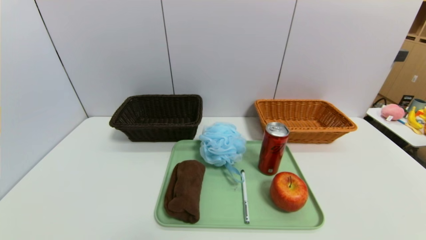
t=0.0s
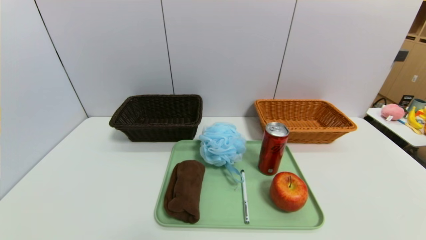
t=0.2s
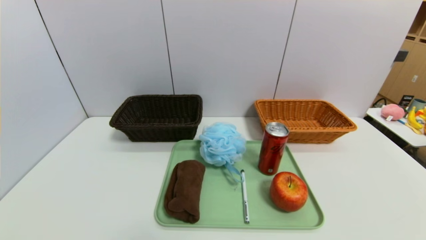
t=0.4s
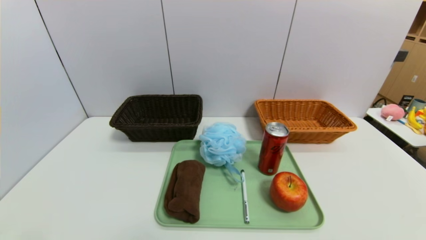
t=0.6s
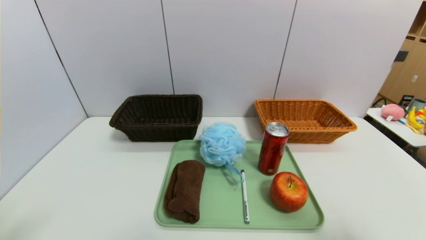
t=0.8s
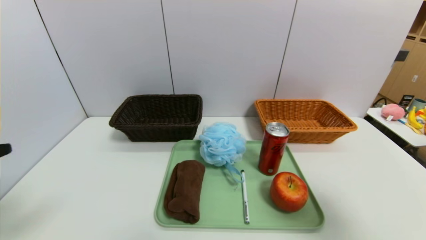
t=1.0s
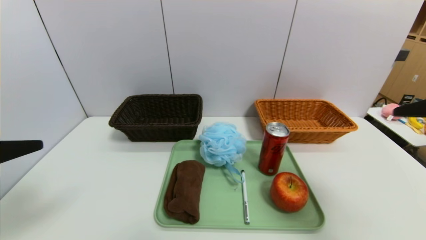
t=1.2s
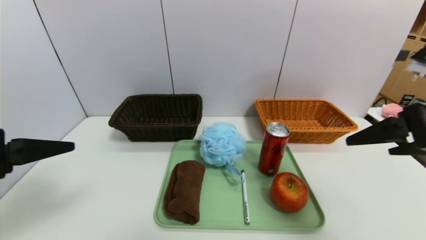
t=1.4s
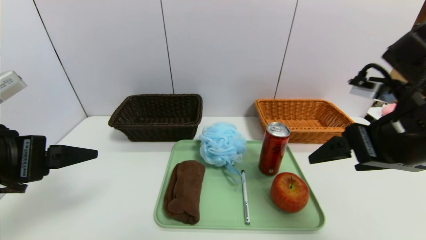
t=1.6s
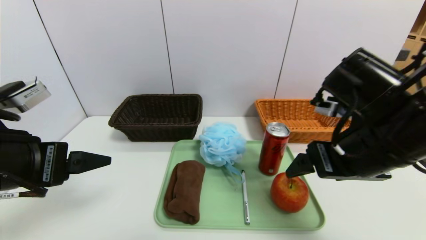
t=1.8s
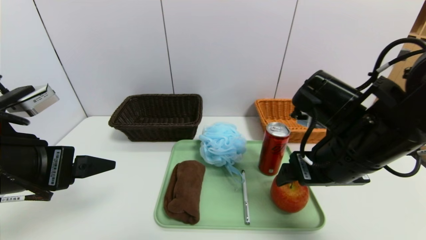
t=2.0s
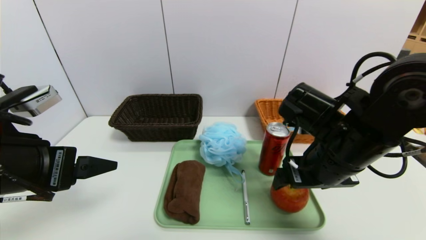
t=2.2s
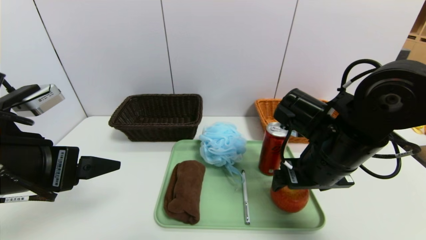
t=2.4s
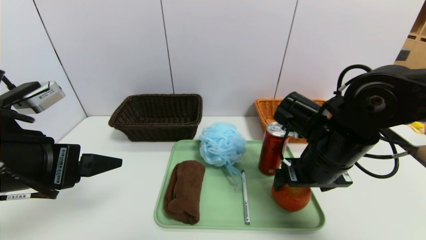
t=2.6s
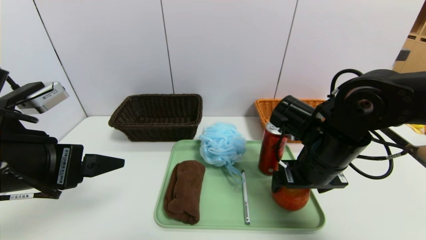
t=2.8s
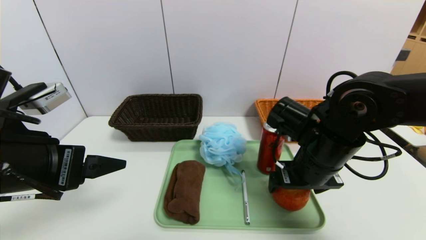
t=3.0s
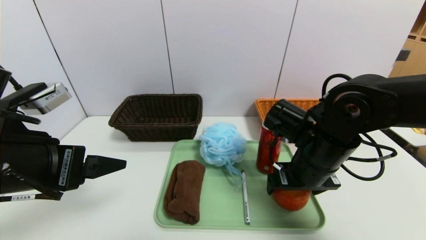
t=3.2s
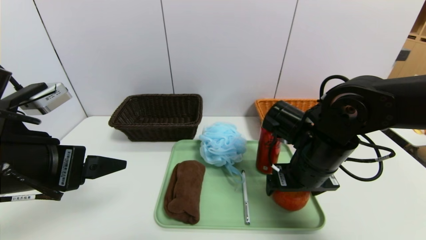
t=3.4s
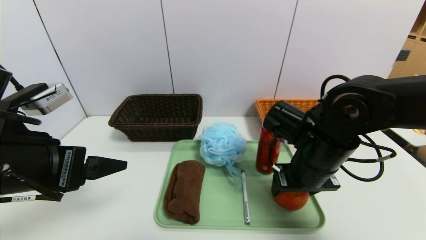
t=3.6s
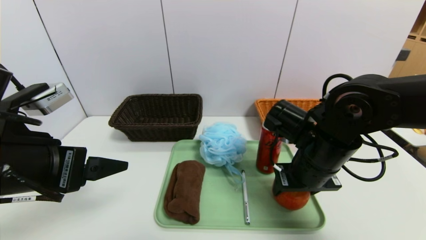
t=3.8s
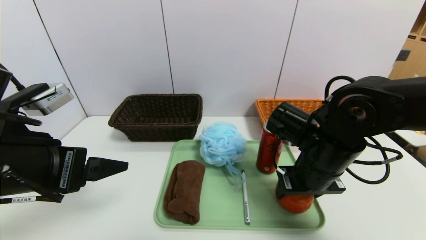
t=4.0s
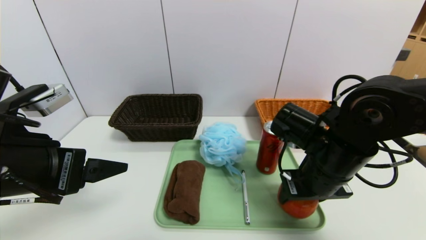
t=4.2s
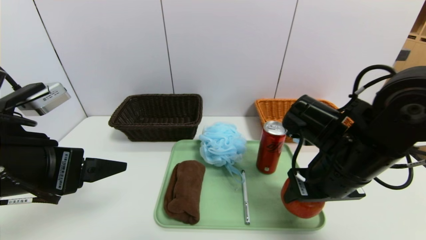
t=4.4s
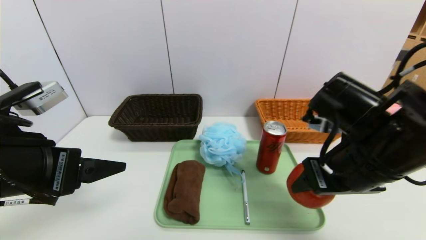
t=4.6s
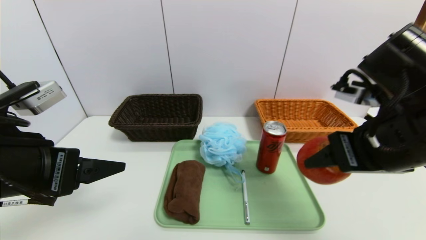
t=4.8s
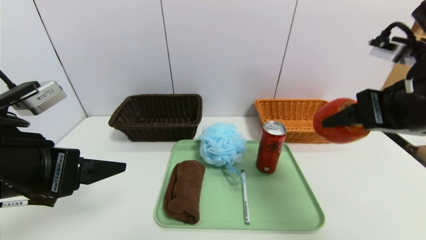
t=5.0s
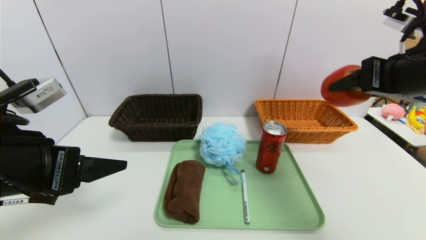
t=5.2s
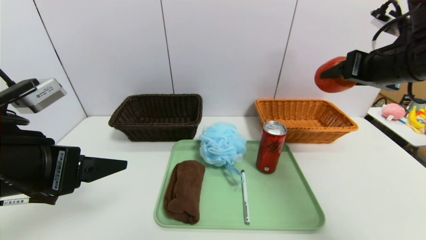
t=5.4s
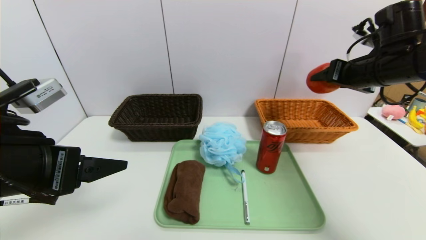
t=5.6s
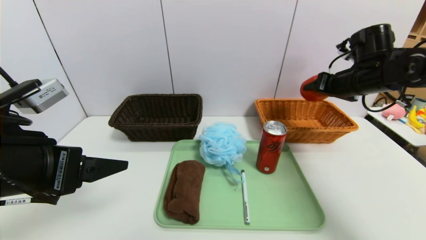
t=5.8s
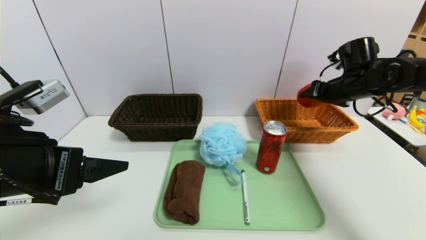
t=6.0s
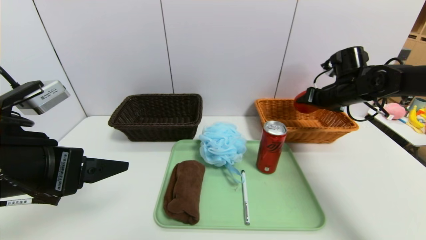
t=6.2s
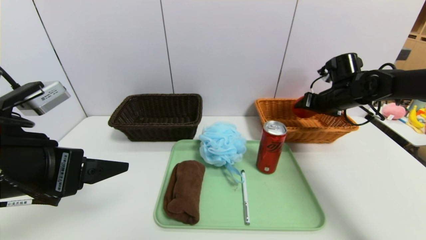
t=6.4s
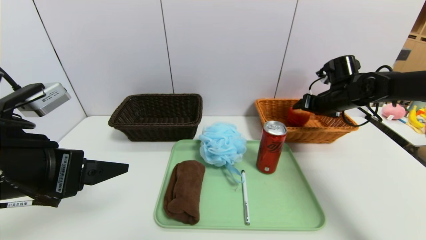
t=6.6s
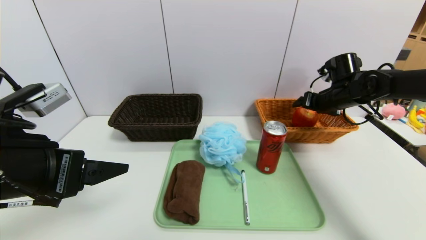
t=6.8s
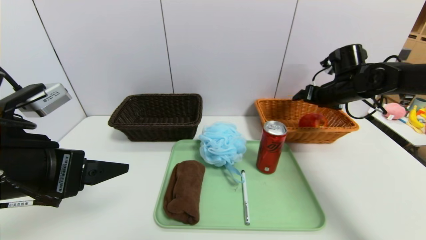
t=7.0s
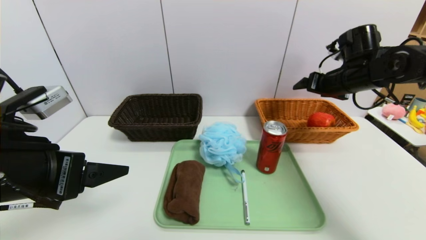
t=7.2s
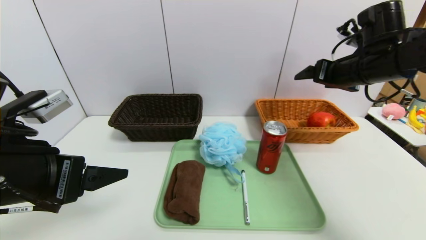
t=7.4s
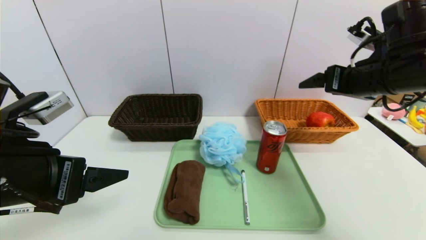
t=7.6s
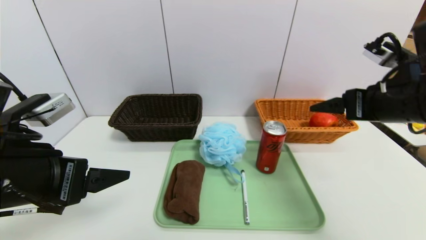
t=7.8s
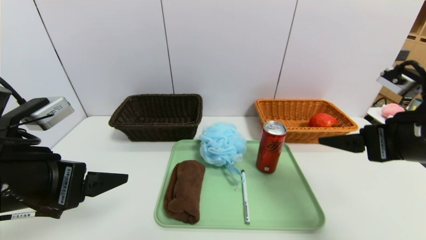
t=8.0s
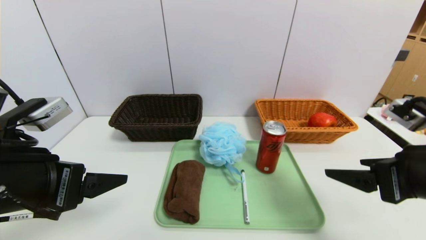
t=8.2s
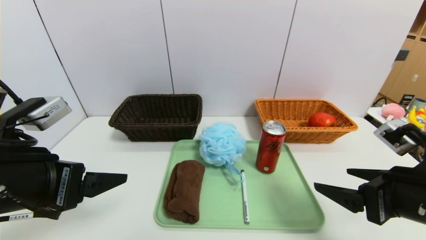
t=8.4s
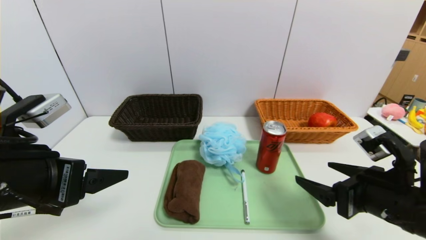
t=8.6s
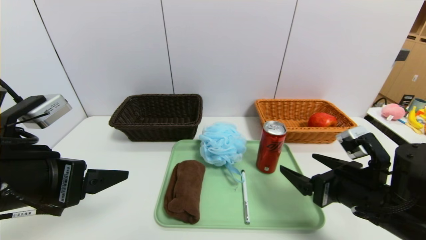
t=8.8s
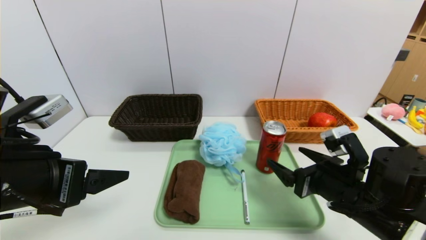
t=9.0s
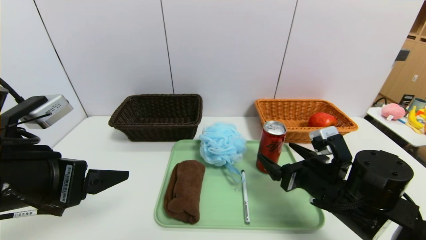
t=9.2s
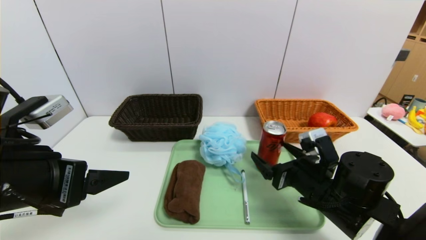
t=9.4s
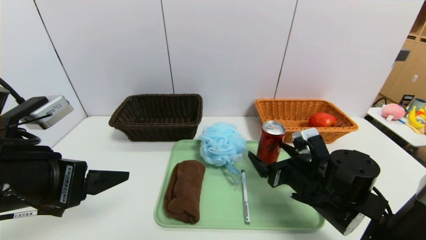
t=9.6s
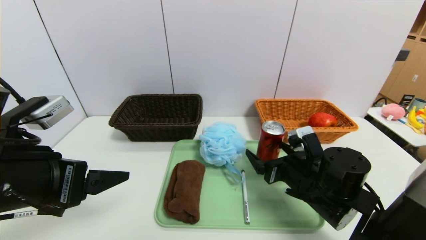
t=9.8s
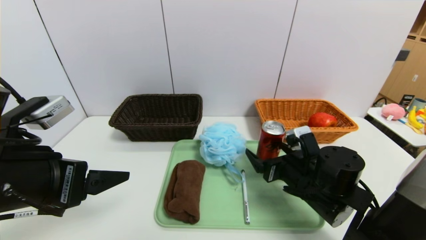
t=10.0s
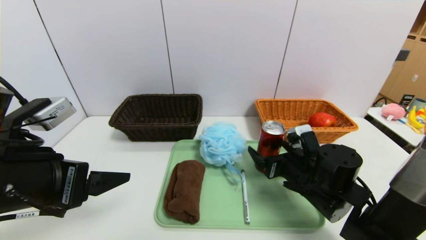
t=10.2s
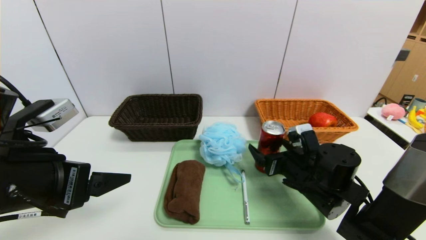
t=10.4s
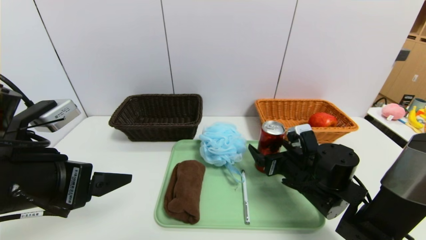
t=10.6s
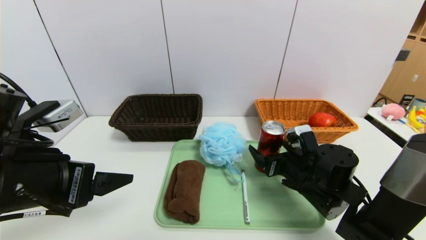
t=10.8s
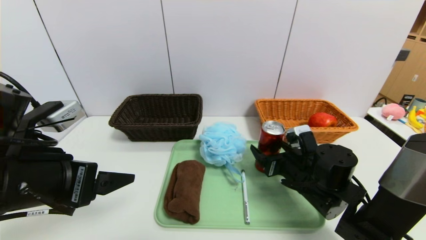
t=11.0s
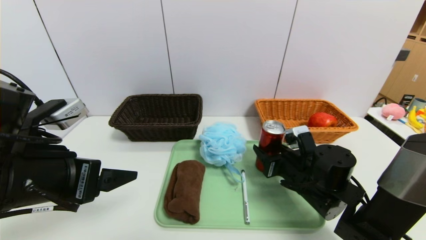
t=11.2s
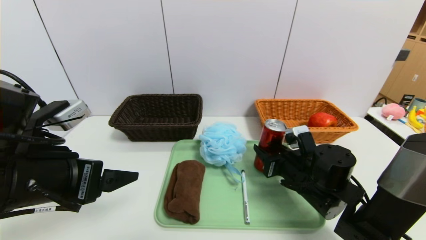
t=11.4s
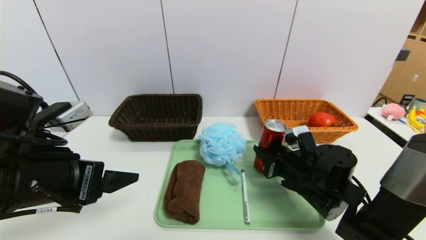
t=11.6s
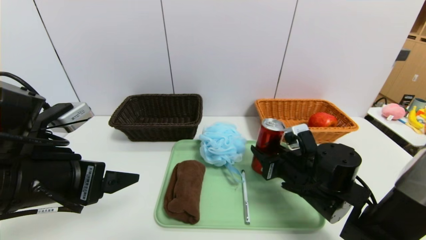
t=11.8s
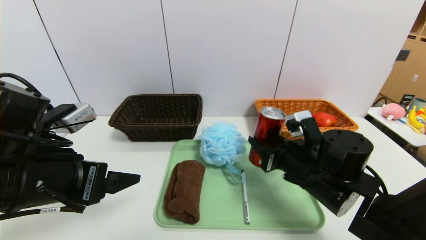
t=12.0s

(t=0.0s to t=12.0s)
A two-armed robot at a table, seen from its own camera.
Task of the whole recording: place the food in the right basket with the right gripper, and place the non food items in the left basket with the left gripper.
Step, t=0.0s - t=7.0s: Grasp the apple and put it in the right basket.
t=0.0s - t=1.6s: The right gripper moves upward, forward and to the left, about 30 cm. Meanwhile the left gripper moves upward and forward, some 25 cm.
t=1.6s - t=3.0s: The right gripper shifts about 15 cm downward, to the left and forward.
t=3.0s - t=4.4s: The right gripper closes.
t=4.4s - t=6.0s: The right gripper moves forward and to the right, about 25 cm.
t=6.0s - t=7.6s: The right gripper goes some 15 cm backward and upward, and opens.
t=7.6s - t=9.0s: The right gripper shifts roughly 20 cm downward and backward.
t=9.0s - t=10.4s: The right gripper shifts approximately 5 cm forward.
t=10.4s - t=12.0s: The right gripper closes up.

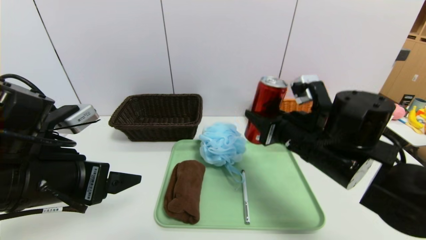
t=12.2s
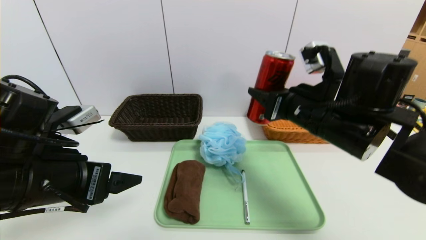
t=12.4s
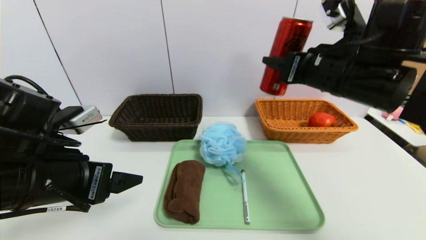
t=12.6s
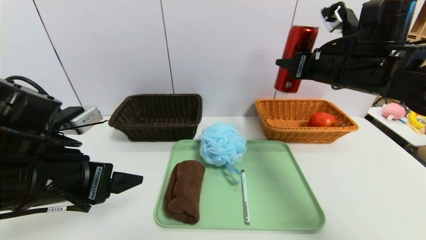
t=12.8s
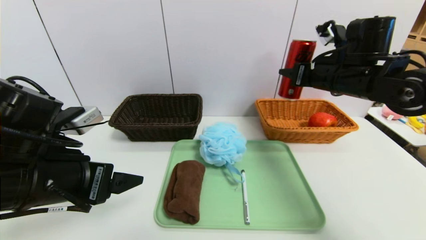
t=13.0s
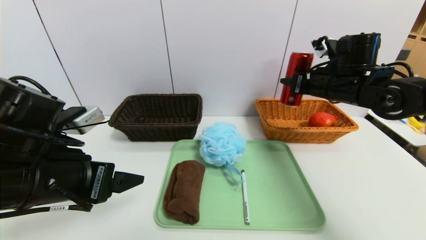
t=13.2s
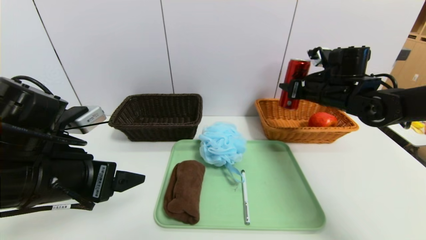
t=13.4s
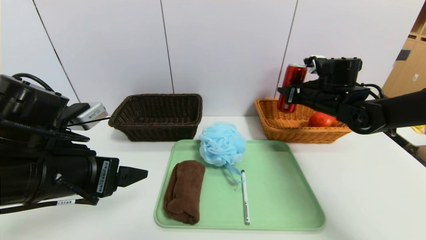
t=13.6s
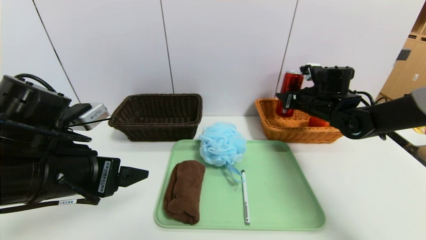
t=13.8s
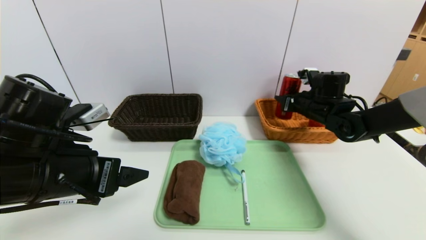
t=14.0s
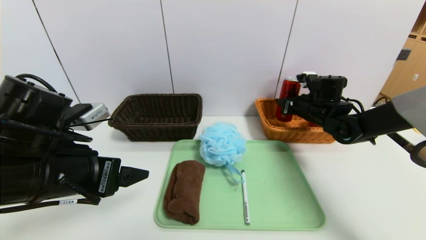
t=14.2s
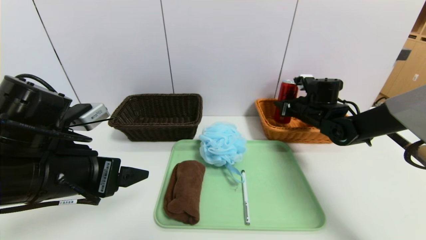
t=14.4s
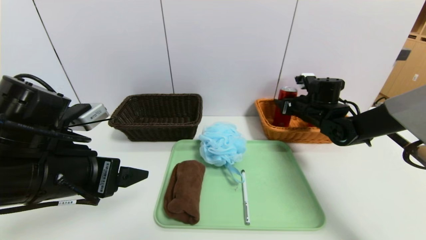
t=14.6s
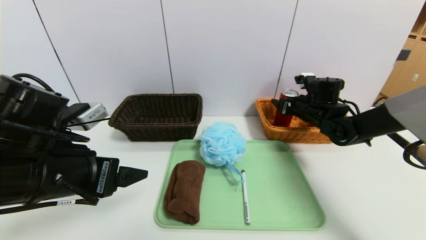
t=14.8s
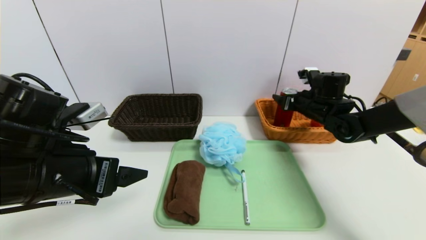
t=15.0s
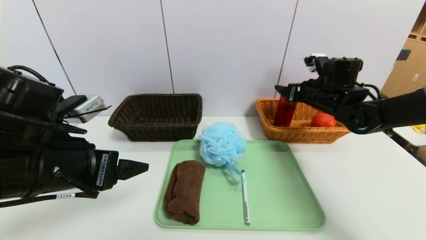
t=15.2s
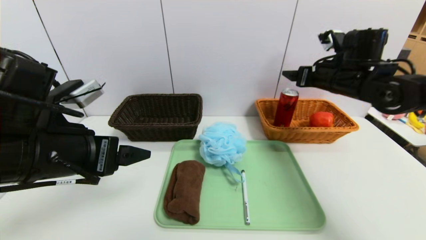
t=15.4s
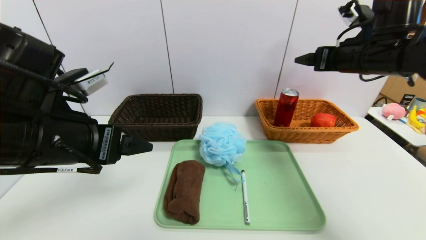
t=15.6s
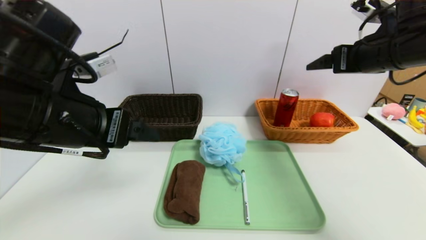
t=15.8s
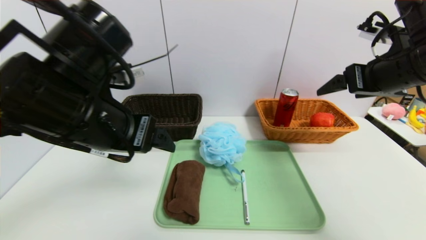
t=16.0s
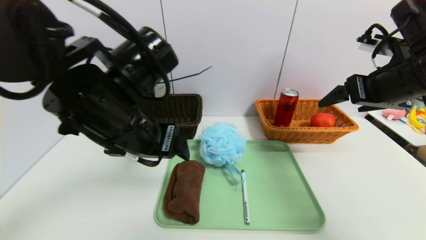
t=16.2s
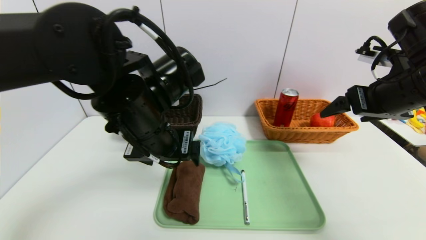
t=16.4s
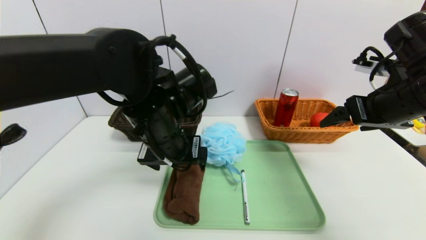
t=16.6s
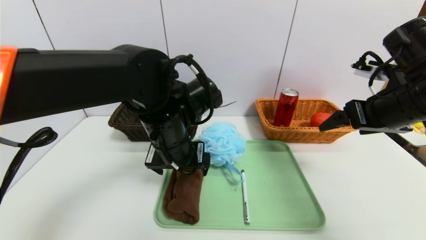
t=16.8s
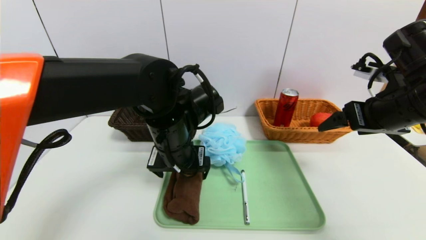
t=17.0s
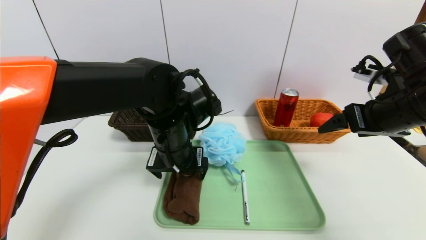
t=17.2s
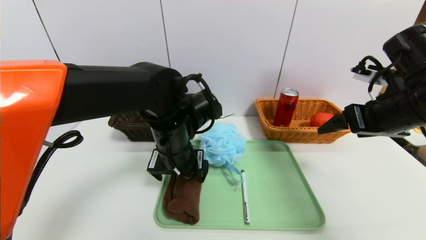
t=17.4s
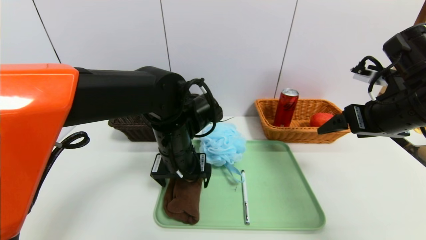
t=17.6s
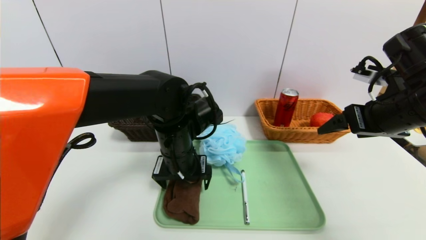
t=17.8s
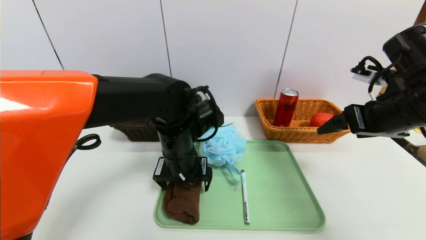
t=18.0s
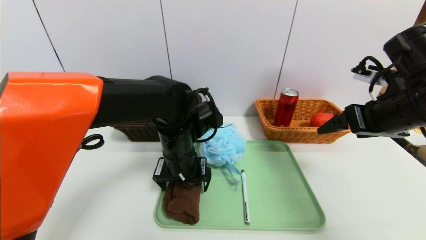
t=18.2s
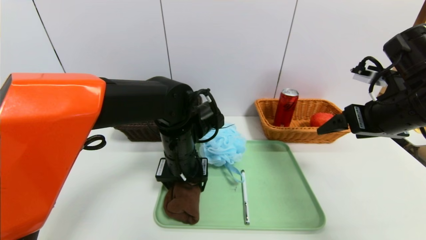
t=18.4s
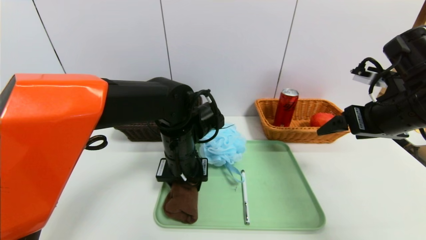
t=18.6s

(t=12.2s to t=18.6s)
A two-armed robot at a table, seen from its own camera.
Task of the whole recording: place the food in the right basket with the right gripper, and place the non food items in the left basket with the left gripper.
Step, t=12.2s - t=15.4s: Grasp the canned cola and put it in the right basket.
t=12.2s - t=13.8s: The right gripper travels forward and to the right by approximately 20 cm.
t=13.8s - t=15.4s: The right gripper moves upward, roughly 10 cm, and opens up.
t=15.4s - t=17.0s: The left gripper shifts approximately 15 cm to the right and forward; the right gripper heads backward, covering roughly 10 cm.
t=17.0s - t=18.6s: The left gripper closes up.
